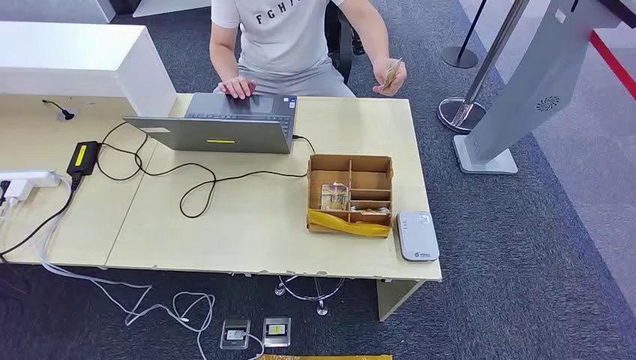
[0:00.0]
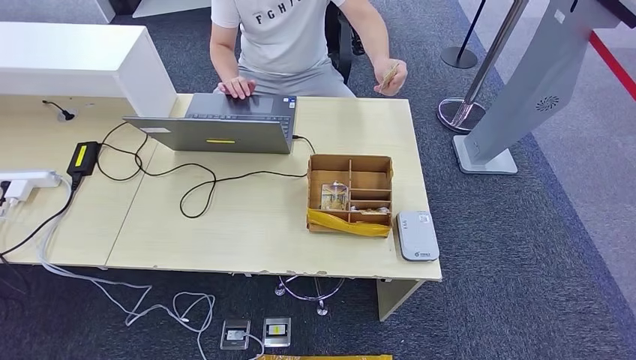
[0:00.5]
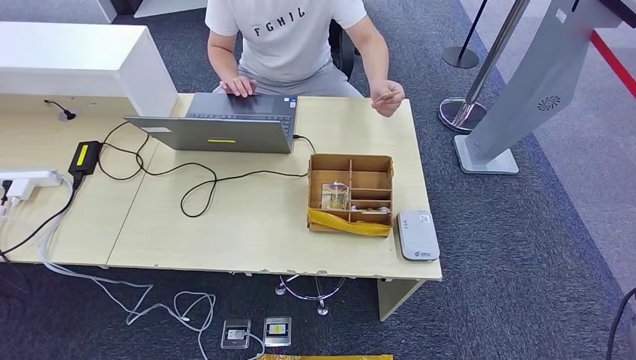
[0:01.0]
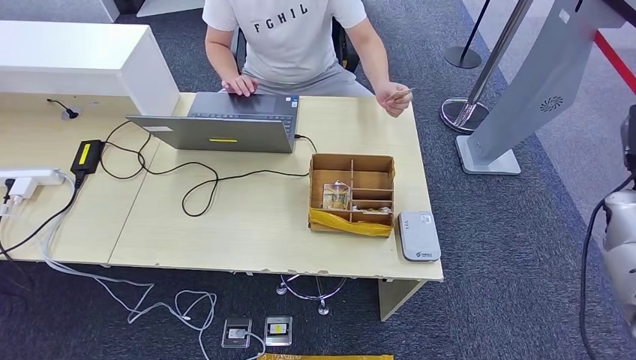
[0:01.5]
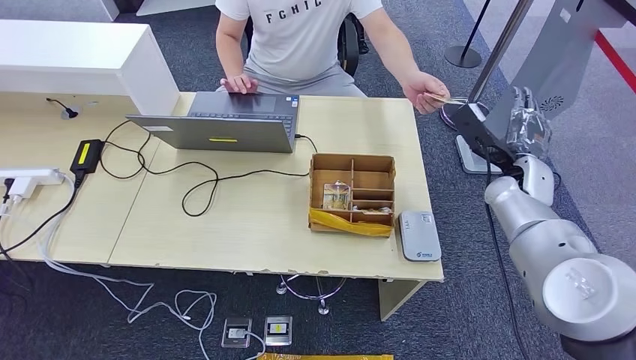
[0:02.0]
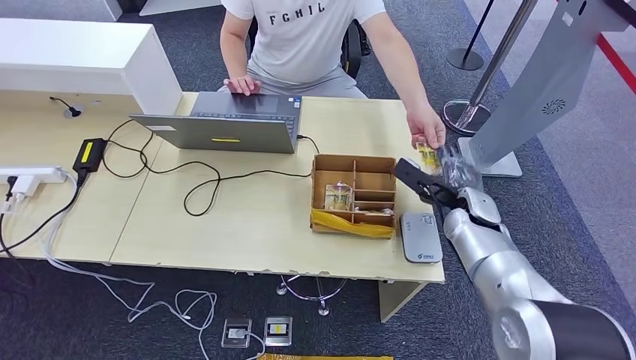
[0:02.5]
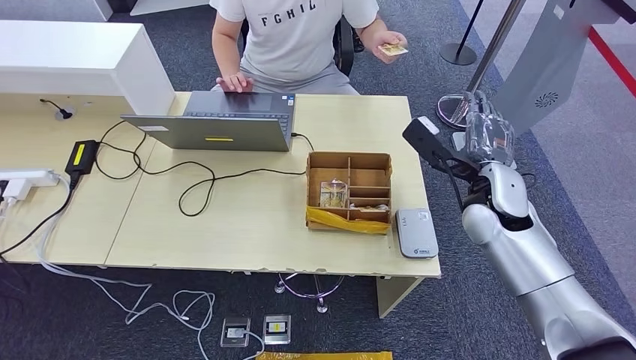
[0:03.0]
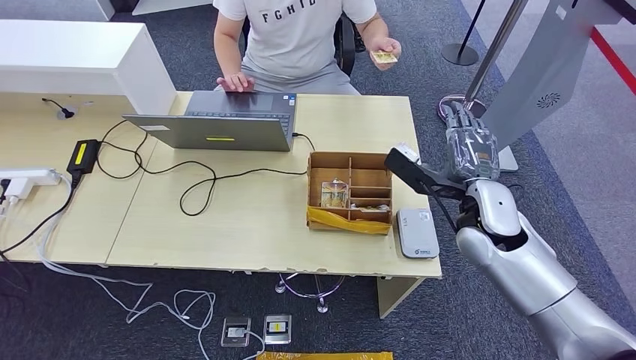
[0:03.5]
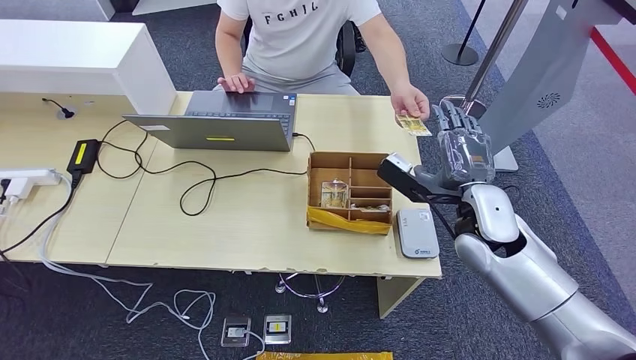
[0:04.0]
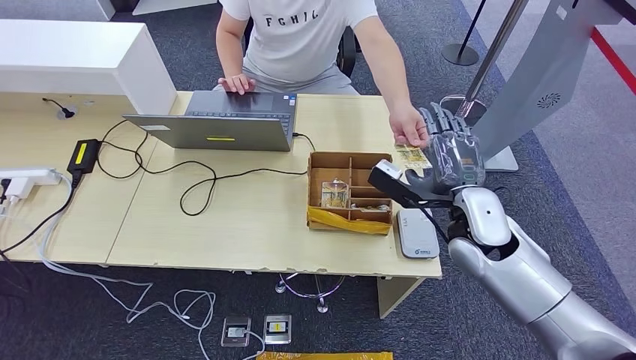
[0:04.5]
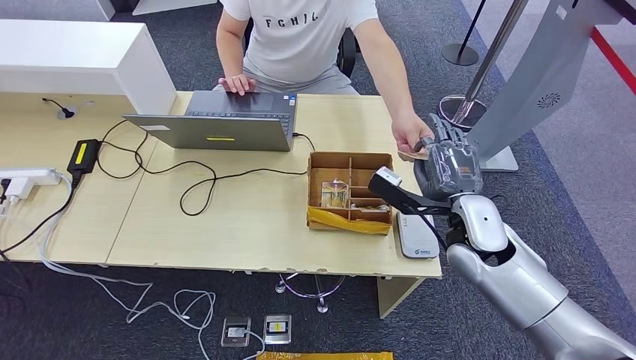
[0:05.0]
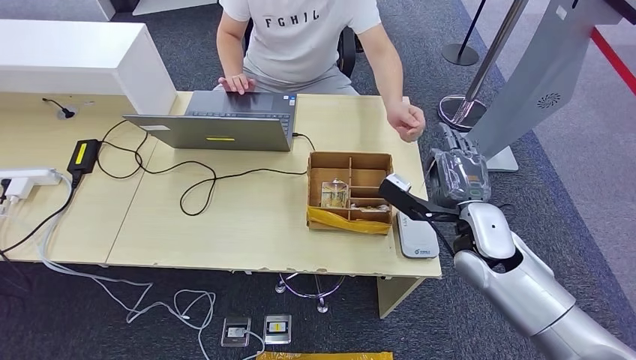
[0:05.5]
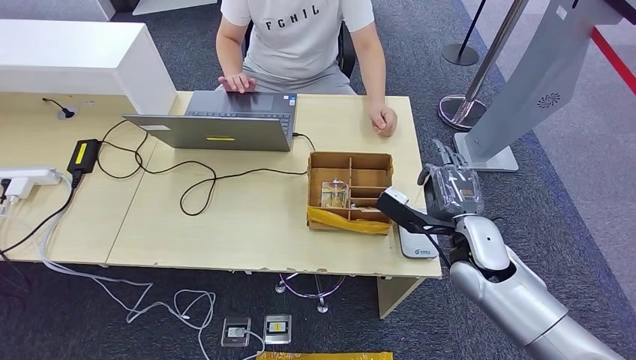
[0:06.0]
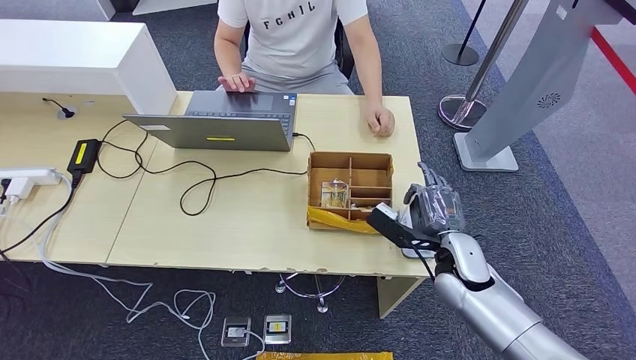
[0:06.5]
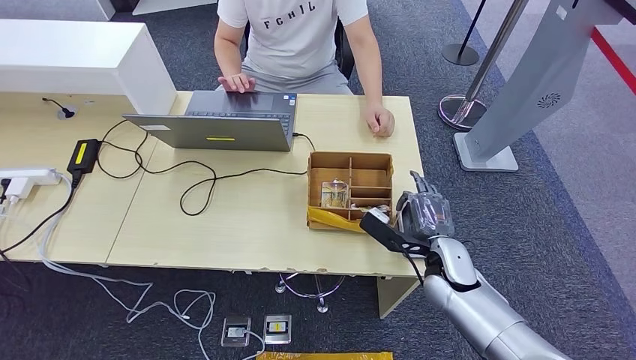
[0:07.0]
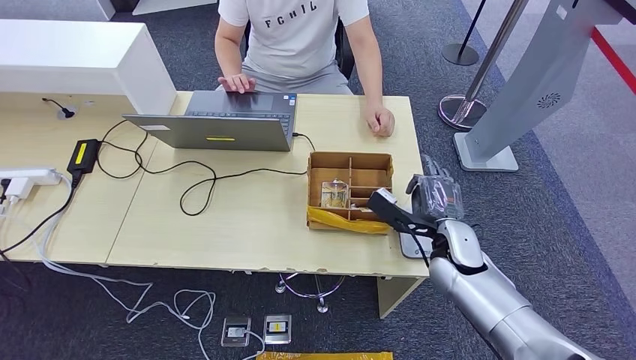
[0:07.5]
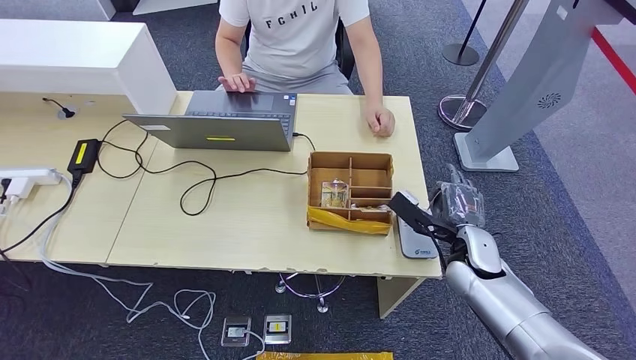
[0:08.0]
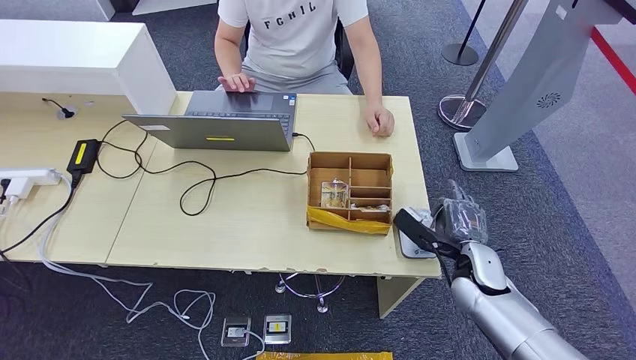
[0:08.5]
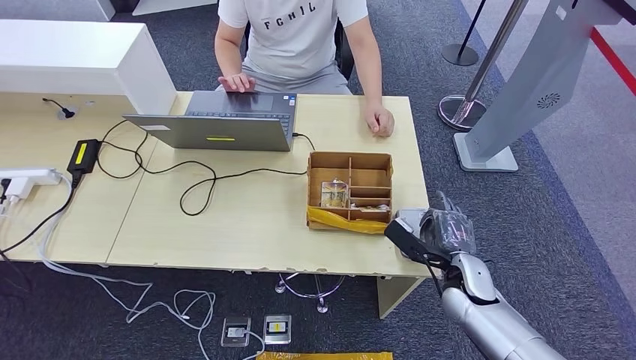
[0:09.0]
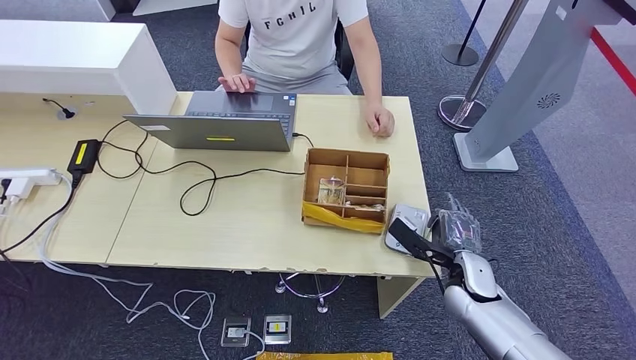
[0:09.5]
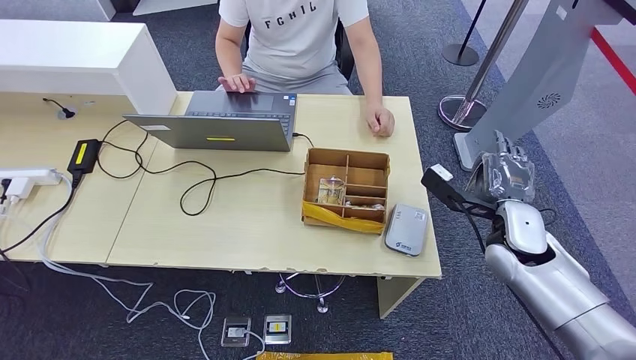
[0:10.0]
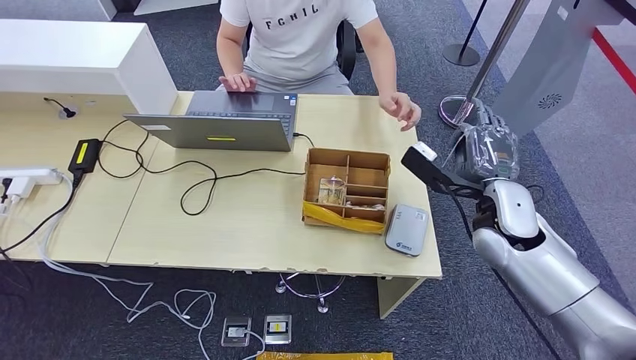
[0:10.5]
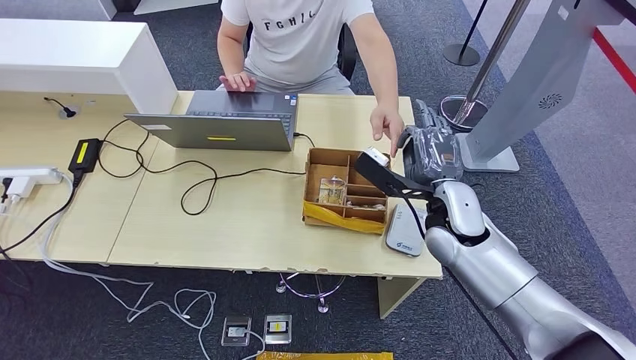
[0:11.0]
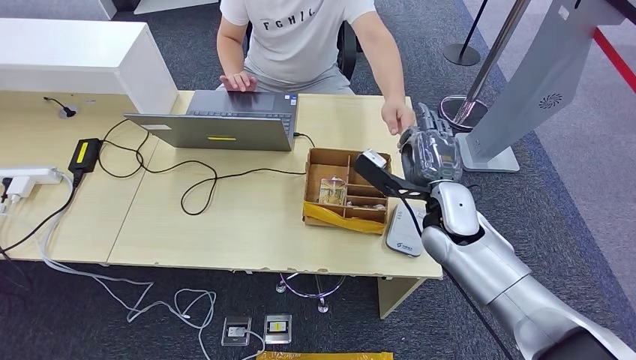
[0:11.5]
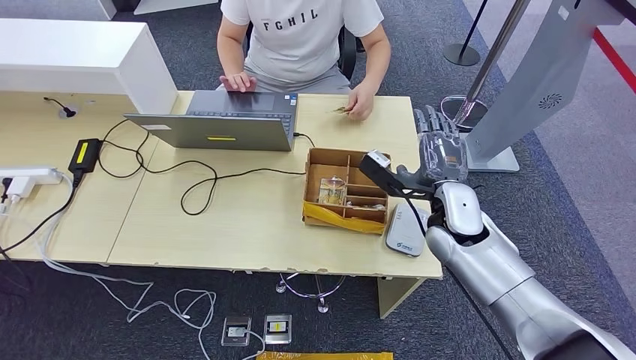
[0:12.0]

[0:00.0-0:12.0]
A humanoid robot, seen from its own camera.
Step, 0:00.0 to 0:05.0: Take the ID card from the person's hand.
Step, 0:06.5 to 0:09.0: Place the ID card on the card reader.
0:04.0 to 0:06.0: The right hand moves downward, about 5 cm.
0:06.0 to 0:08.0: The right hand goes about 5 cm downward.
0:08.0 to 0:10.0: The right hand shifts approximately 5 cm upward.
0:10.0 to 0:12.0: The right hand travels to the left by some 10 cm.

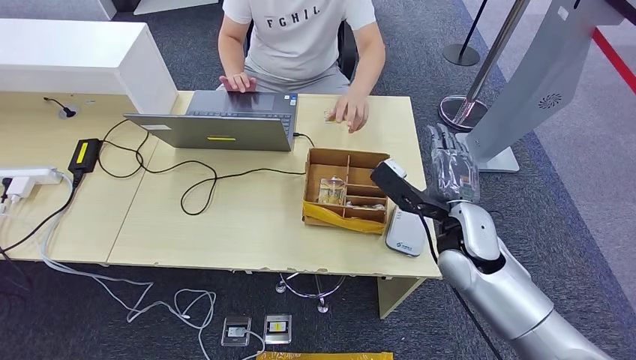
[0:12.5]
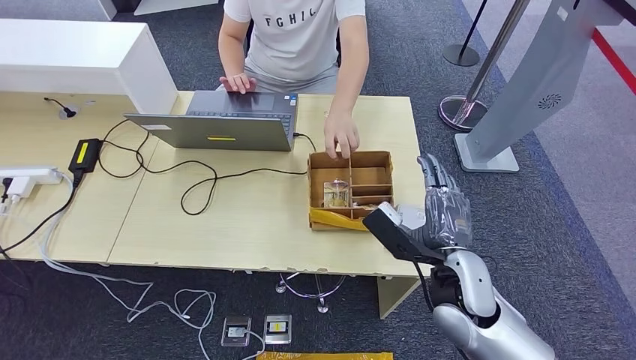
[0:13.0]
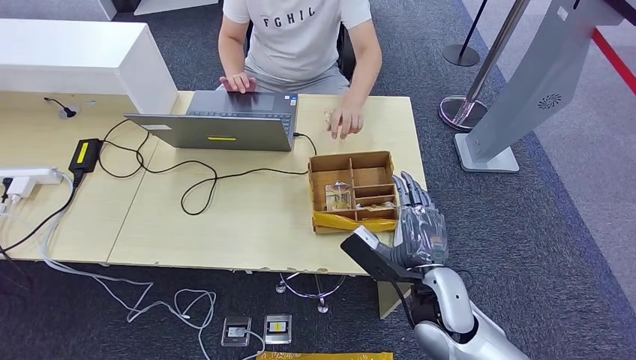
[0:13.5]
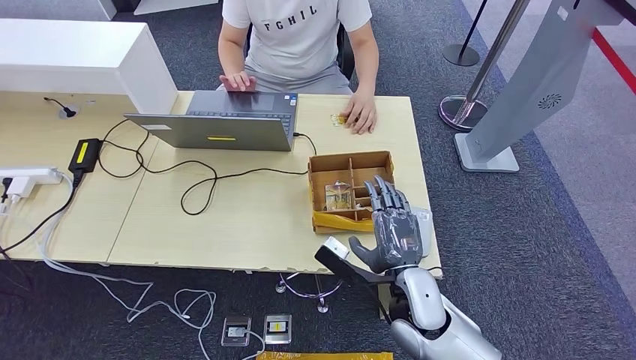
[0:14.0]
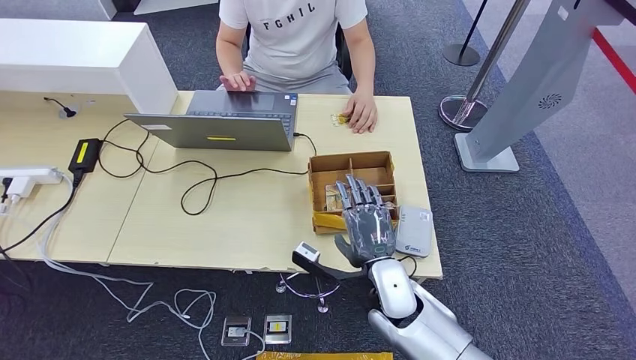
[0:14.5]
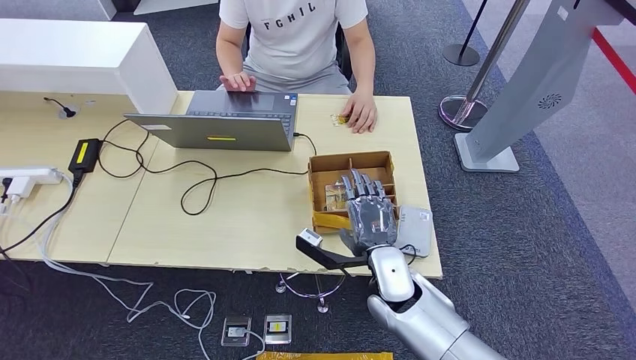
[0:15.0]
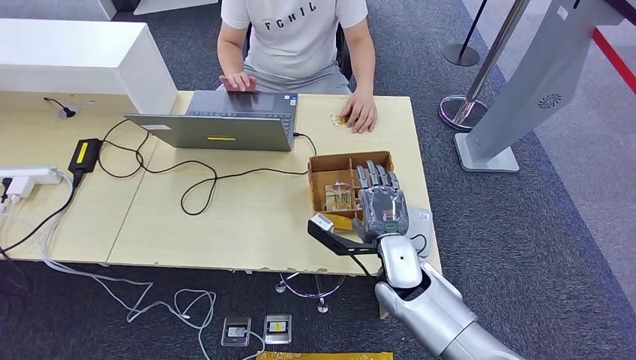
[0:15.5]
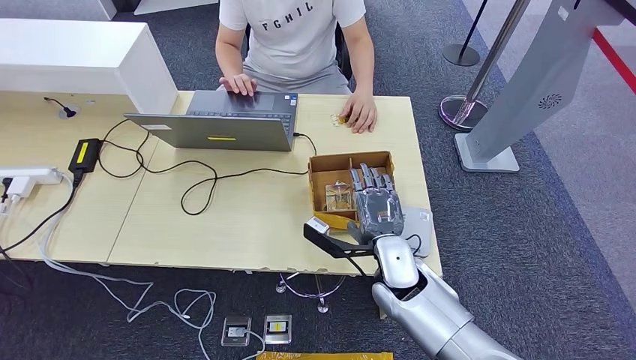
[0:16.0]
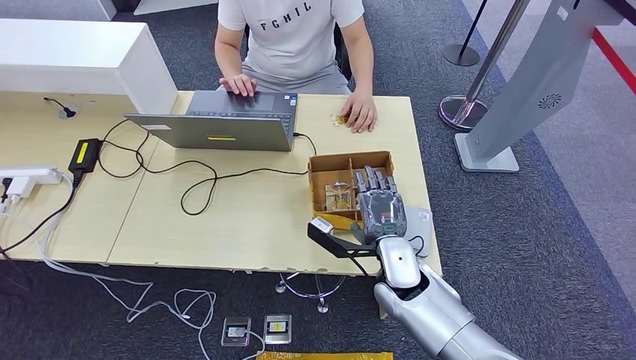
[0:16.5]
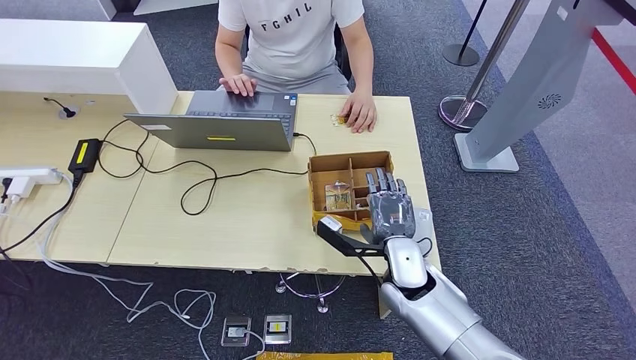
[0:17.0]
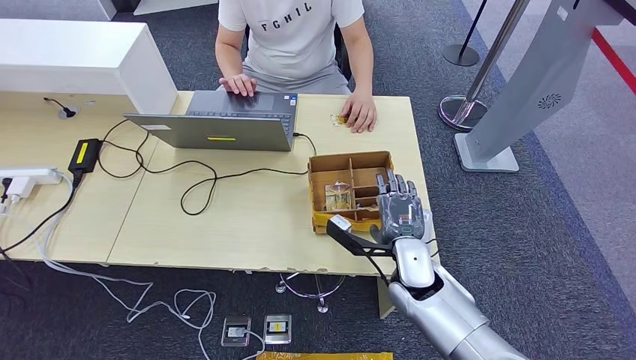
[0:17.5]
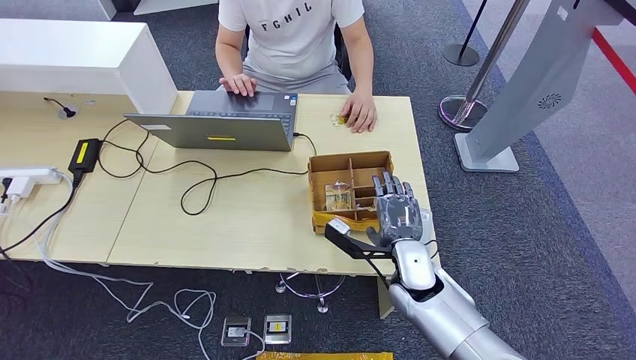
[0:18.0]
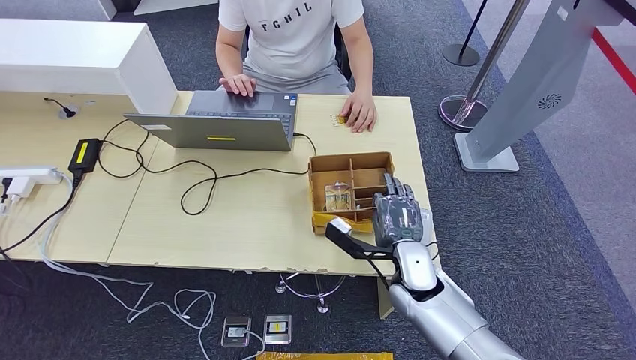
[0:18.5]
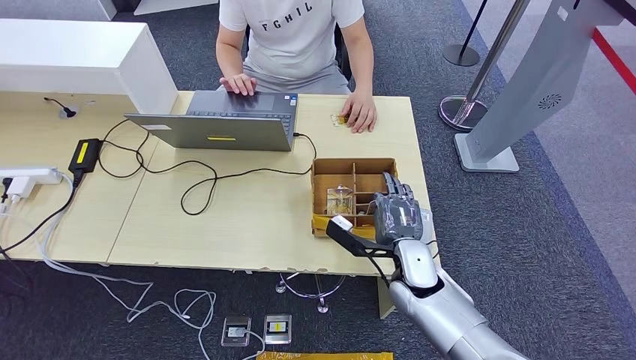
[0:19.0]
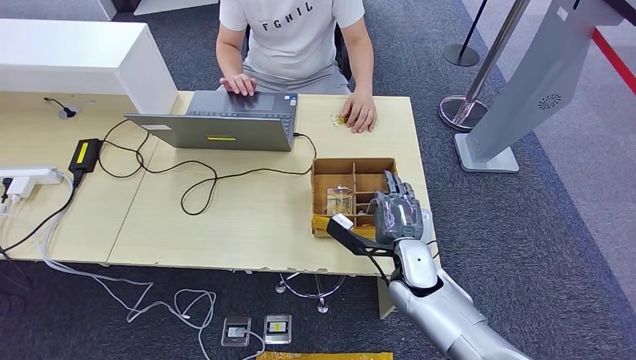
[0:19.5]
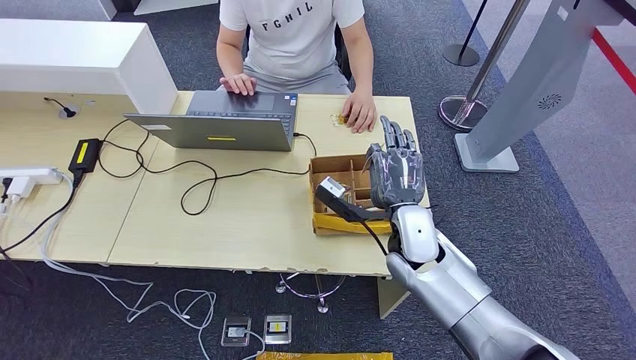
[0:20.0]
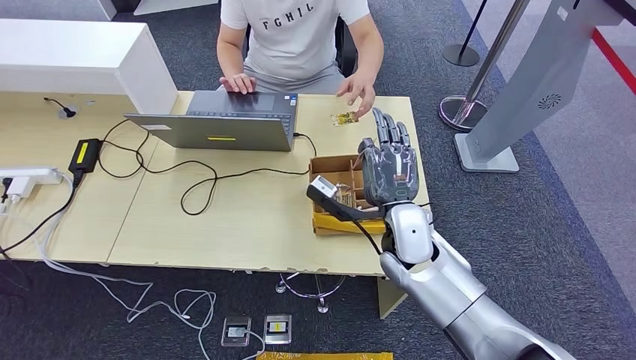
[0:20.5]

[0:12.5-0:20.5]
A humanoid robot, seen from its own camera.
0:12.5 to 0:14.5: The right hand is displaced to the left, downward and backward by some 15 cm.
0:14.5 to 0:18.5: The hands move only a little.
0:18.5 to 0:20.5: The right hand goes some 10 cm upward.
